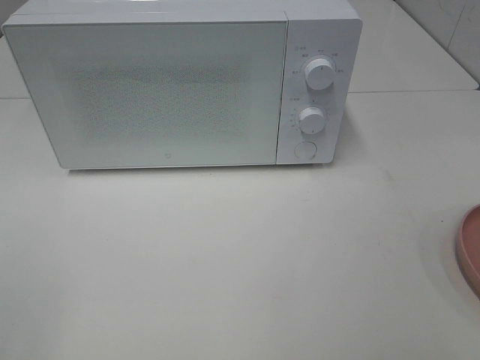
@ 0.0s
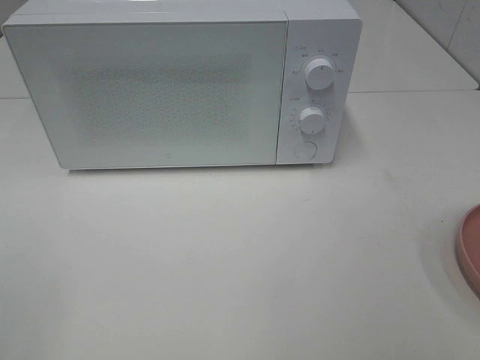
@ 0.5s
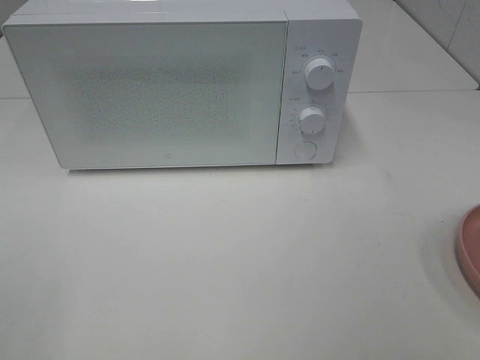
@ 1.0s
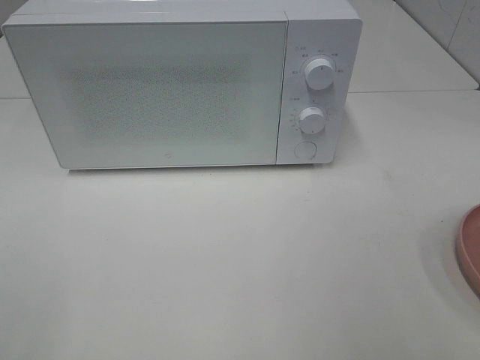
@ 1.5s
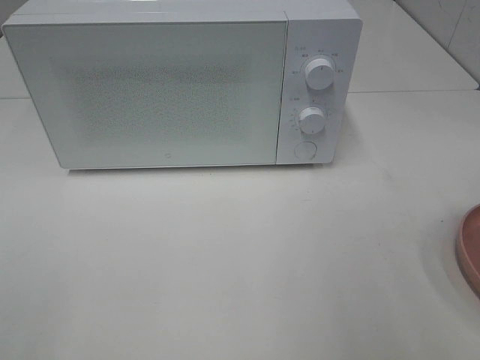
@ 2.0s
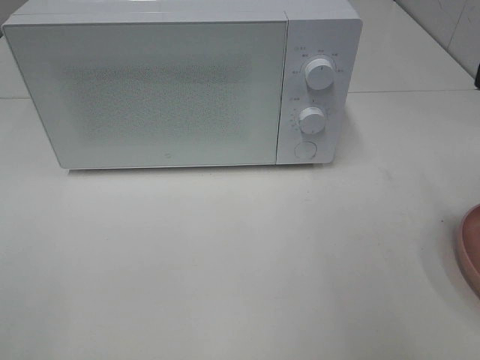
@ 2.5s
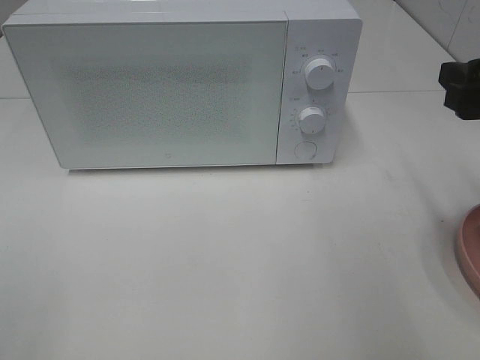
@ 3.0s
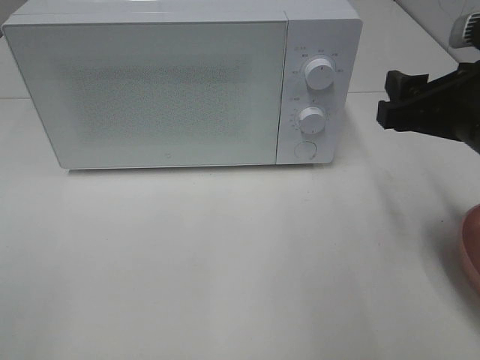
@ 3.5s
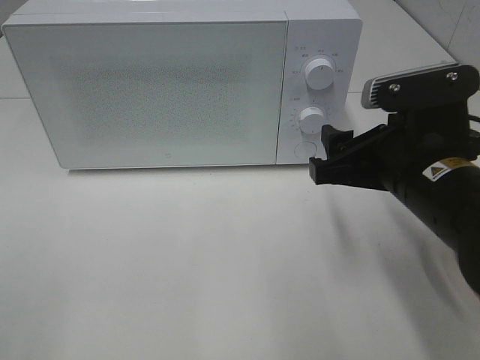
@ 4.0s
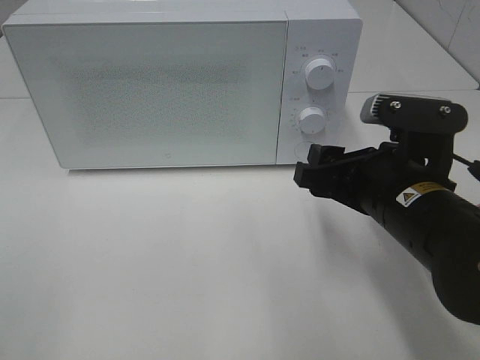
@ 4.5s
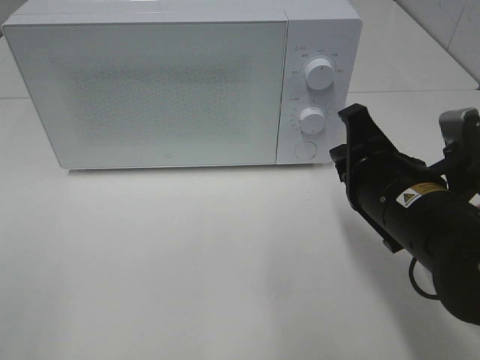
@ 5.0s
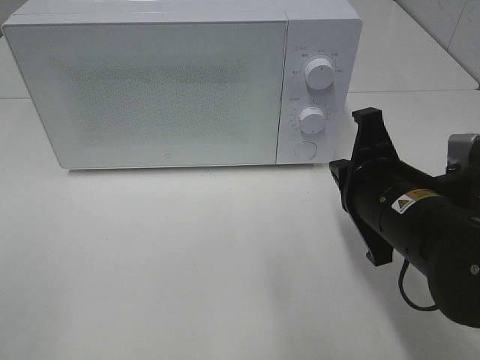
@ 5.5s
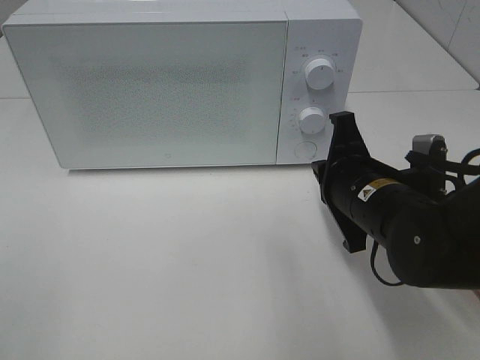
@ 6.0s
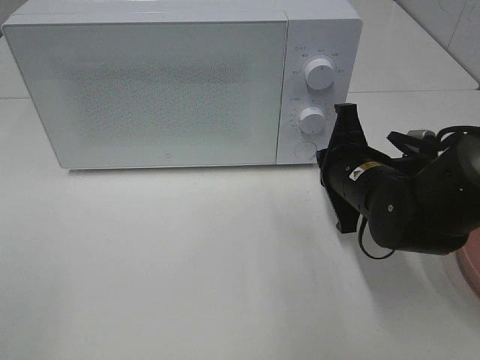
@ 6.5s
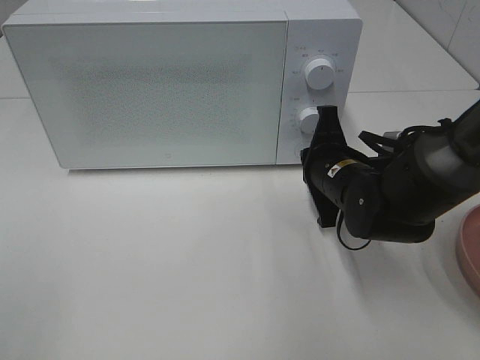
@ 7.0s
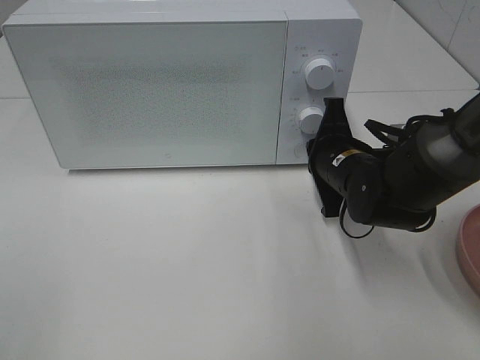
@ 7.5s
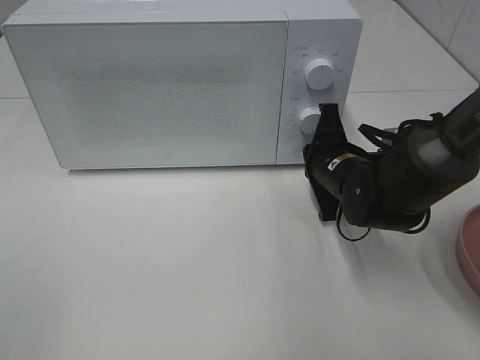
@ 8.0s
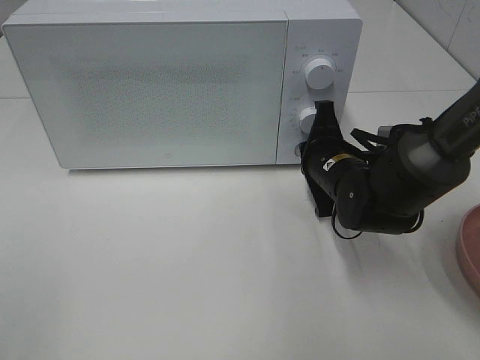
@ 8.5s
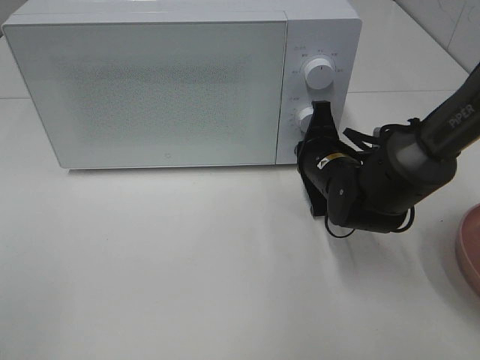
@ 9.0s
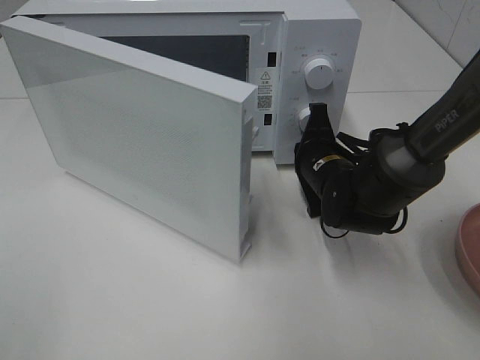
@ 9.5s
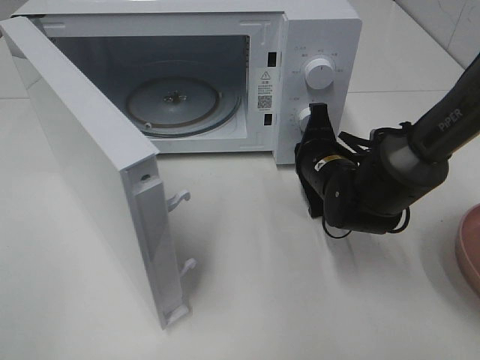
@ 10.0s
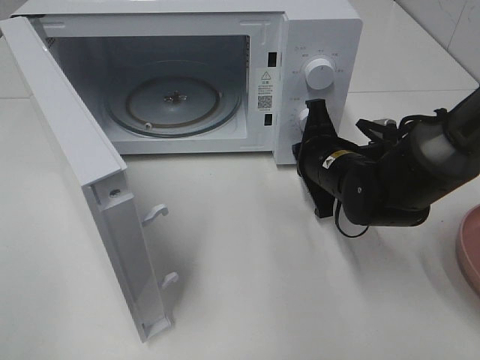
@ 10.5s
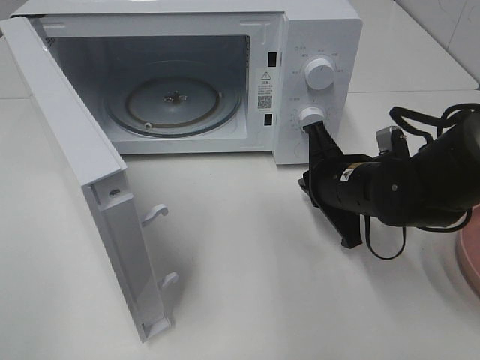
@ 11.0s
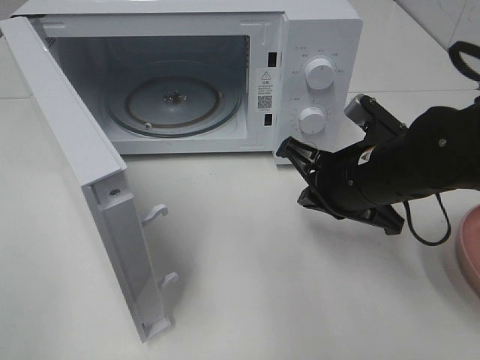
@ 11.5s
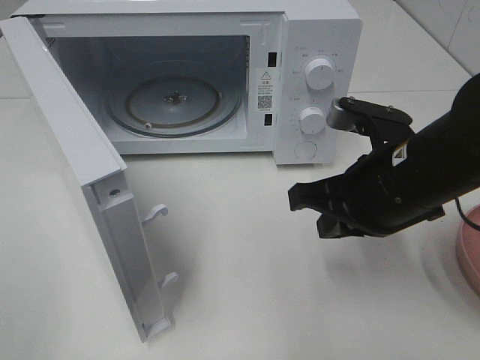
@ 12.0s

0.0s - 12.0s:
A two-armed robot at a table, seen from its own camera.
Task of the whole recording: Heat the burger.
Step, 0.0s - 10.5s: Right hand: press the switch.
2.0s - 4.0s: The right gripper travels downward, to the left and forward by roughly 20 cm.
4.0s - 6.0s: The right gripper heads downward, covering roughly 5 cm, and closes up.
6.0s - 8.0s: The right gripper heads forward, covering roughly 10 cm.
10.0s - 12.0s: The right gripper goes some 15 cm backward and upward.

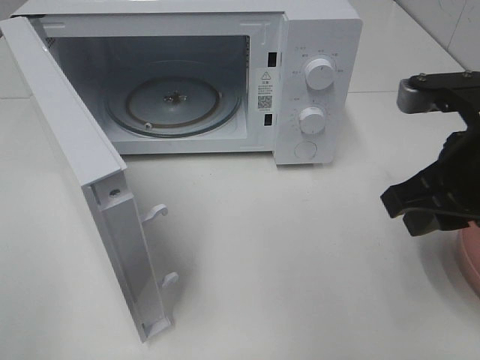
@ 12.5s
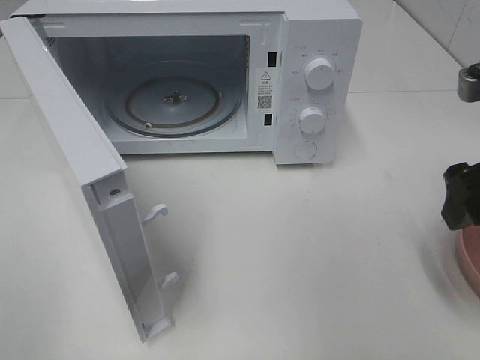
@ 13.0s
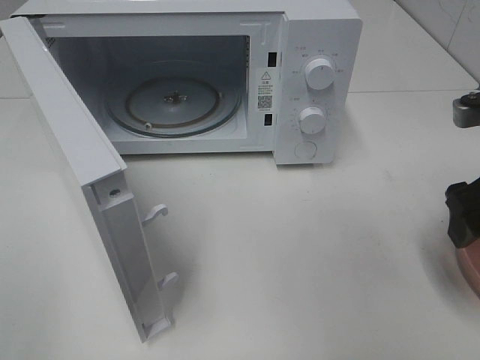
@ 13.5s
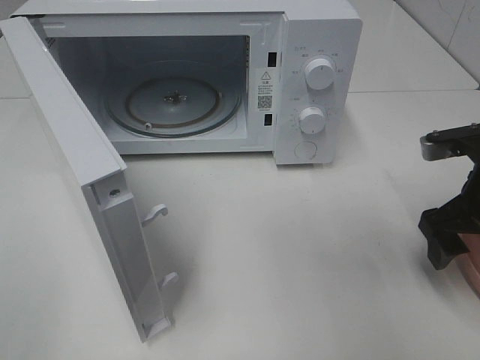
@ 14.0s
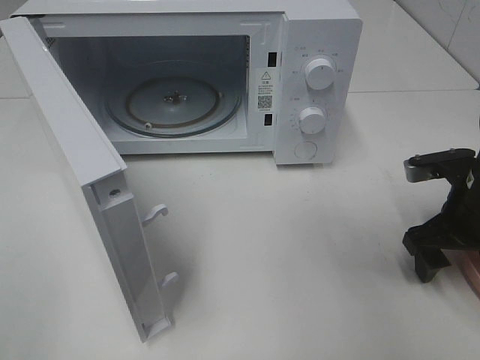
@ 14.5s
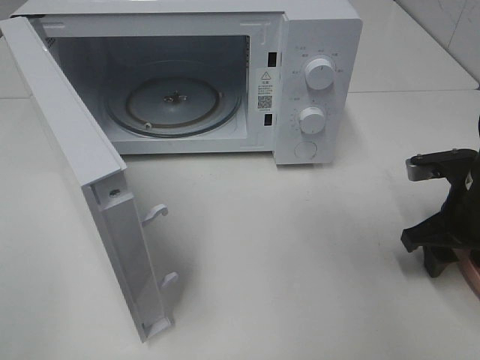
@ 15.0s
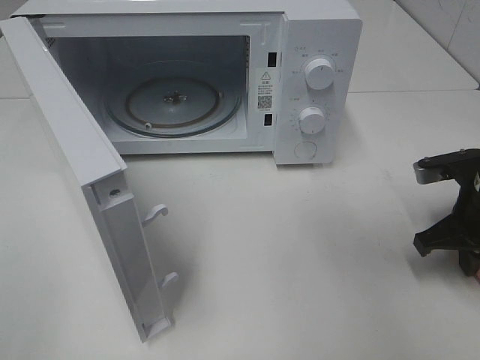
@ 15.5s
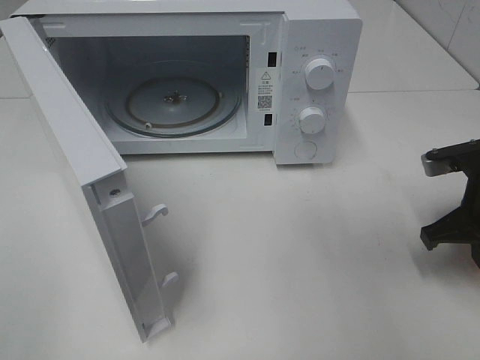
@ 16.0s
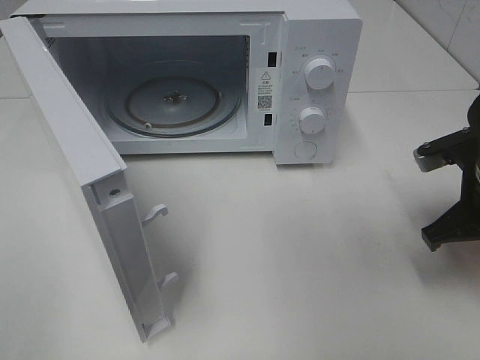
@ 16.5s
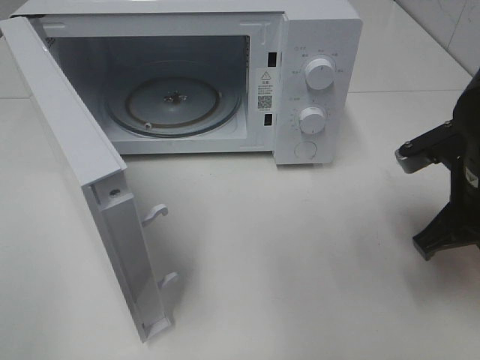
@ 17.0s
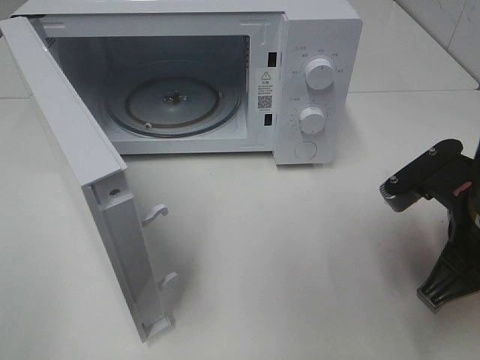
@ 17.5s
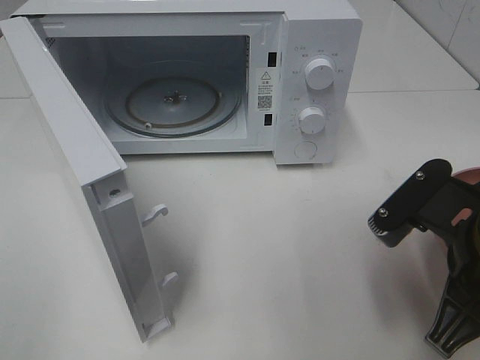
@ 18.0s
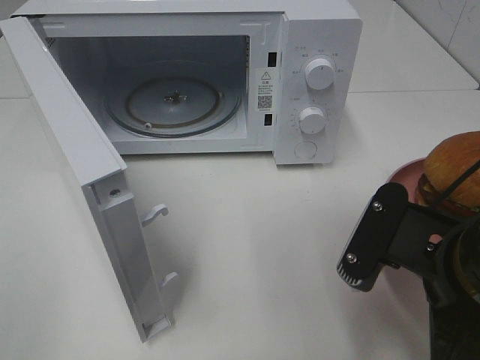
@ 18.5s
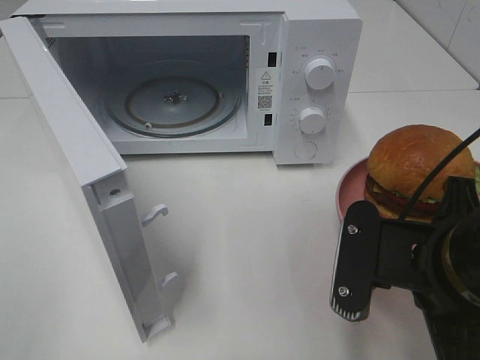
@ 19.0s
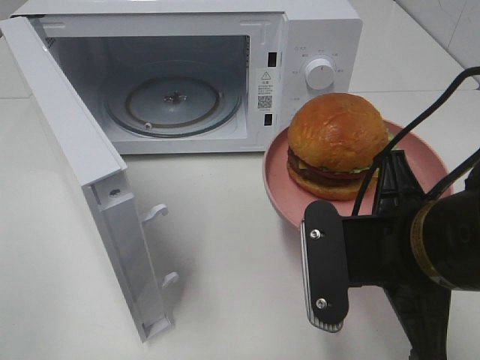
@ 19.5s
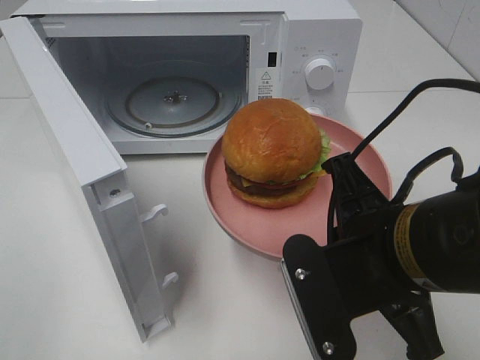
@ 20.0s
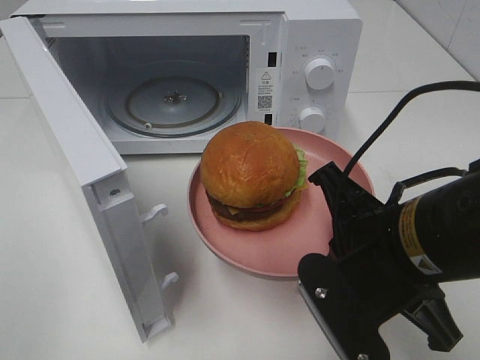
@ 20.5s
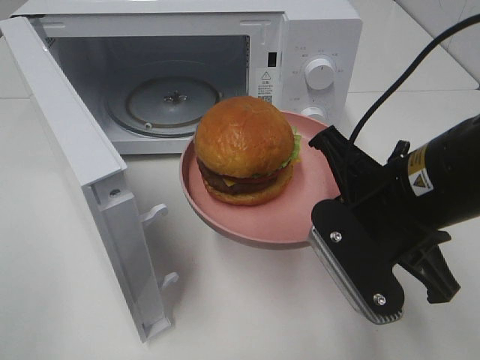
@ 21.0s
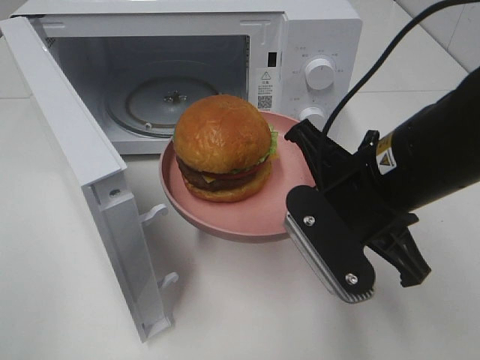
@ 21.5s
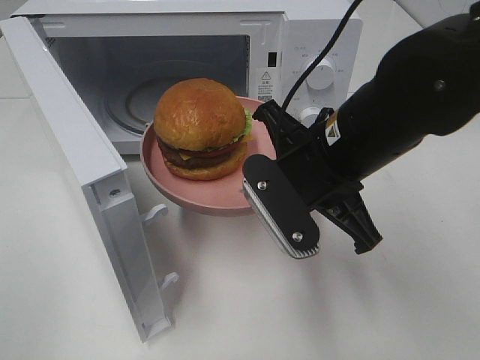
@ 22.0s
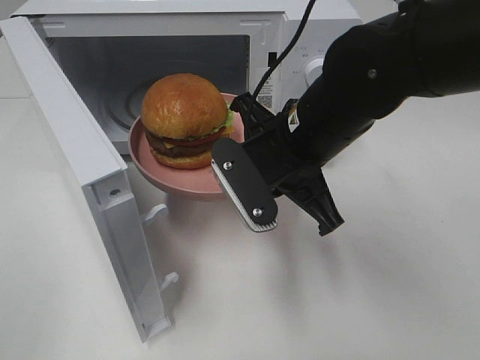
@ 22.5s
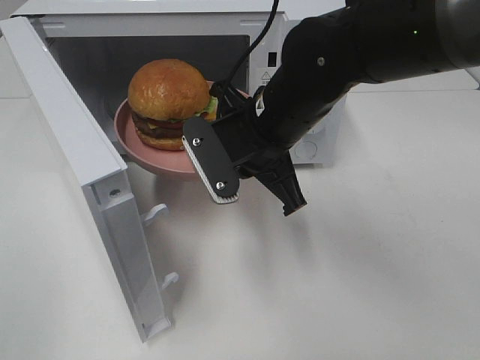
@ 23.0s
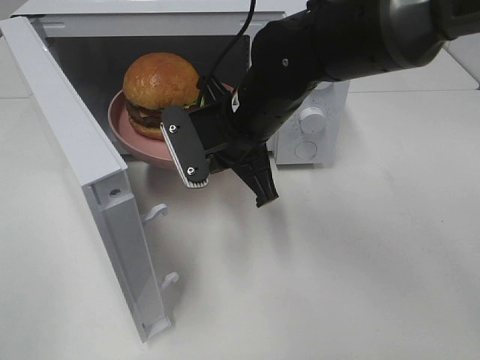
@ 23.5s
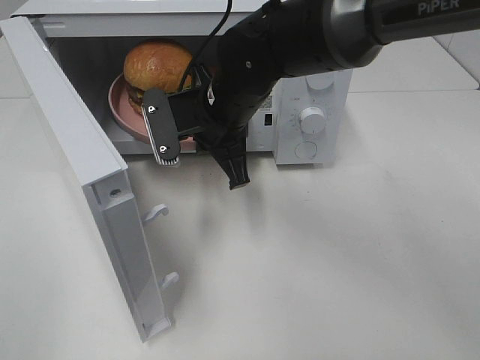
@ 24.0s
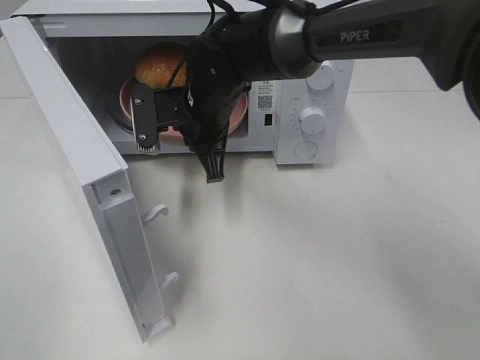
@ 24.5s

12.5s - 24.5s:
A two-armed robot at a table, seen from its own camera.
Task of the whole recording: Heat the burger.
Step, 12.5s - 15.5s: Right hand: grab the plate with the hamburger.
12.5s - 14.5s: The right gripper goes some 15 cm downward, to the right and forward, and opens its fingers.
14.5s - 16.5s: The right gripper closes up.
16.5s - 18.5s: The right gripper goes approximately 15 cm backward and to the left.
20.5s - 22.5s: The right gripper goes about 15 cm forward and to the left.
22.5s - 24.5s: The right gripper goes roughly 15 cm forward and to the left.

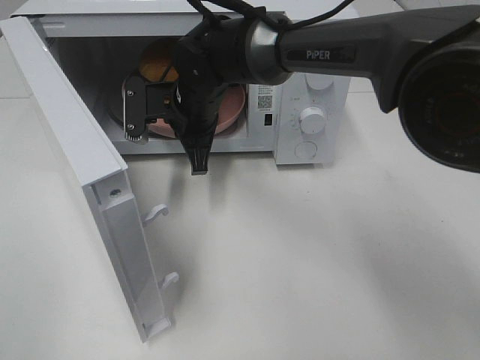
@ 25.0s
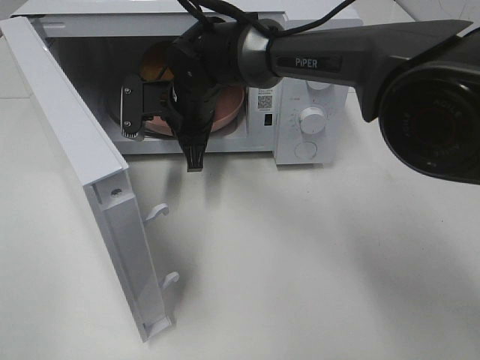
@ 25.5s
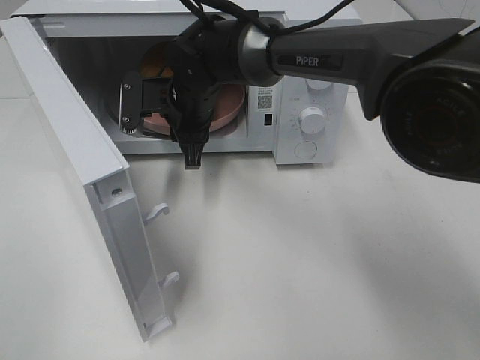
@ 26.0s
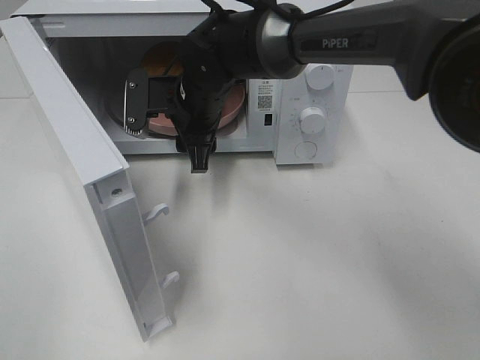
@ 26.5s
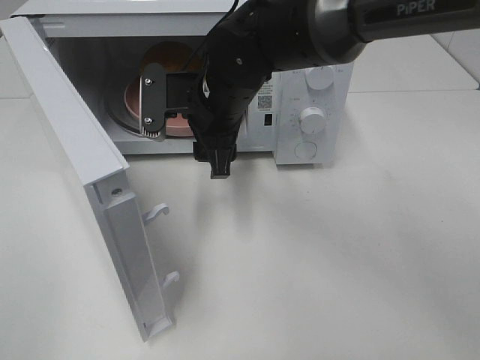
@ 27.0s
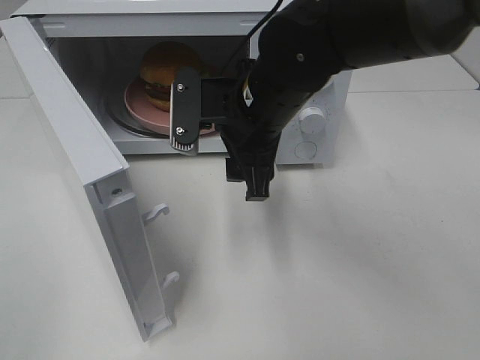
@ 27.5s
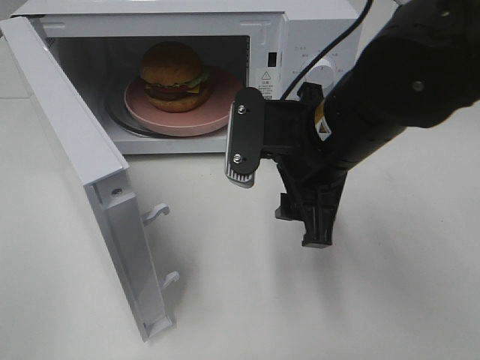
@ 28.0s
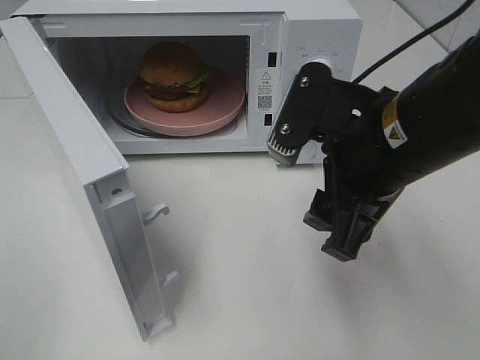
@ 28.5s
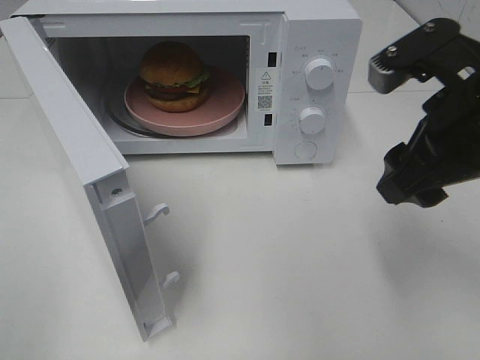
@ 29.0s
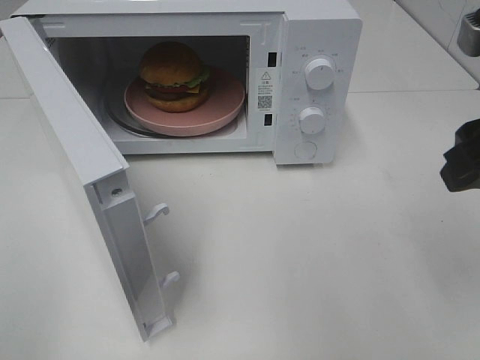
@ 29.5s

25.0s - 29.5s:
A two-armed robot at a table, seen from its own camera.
Task of the whole recording: Heat the burger.
25.0s - 27.0s: The right gripper changes place by roughly 5 cm, and opens up.
27.0s - 29.5s: The right gripper is displaced to the right, backward and upward by roughly 30 cm.
